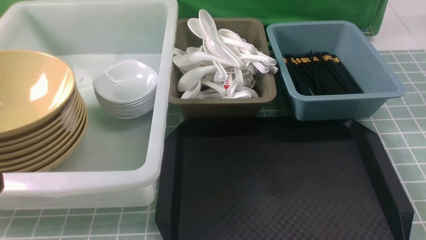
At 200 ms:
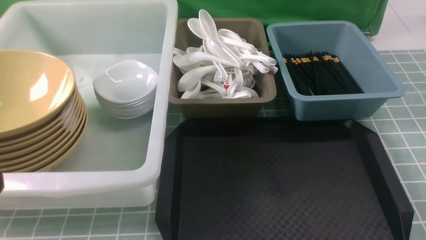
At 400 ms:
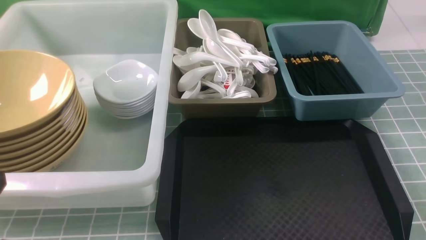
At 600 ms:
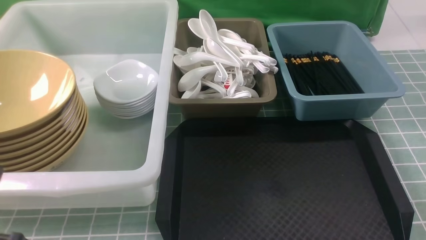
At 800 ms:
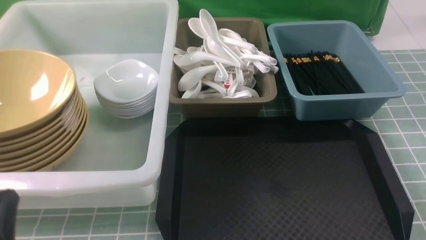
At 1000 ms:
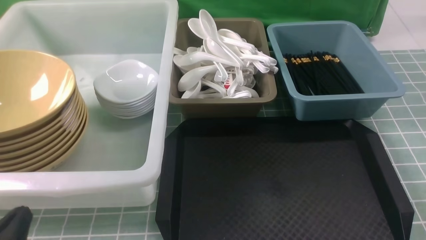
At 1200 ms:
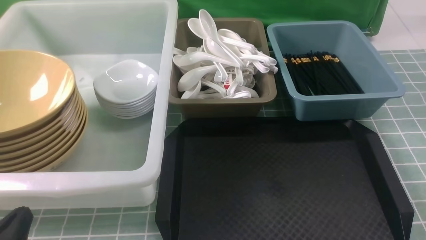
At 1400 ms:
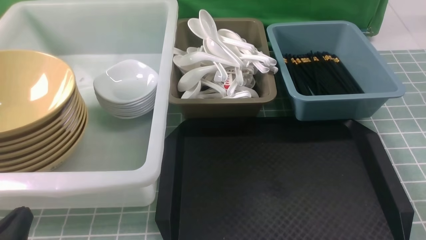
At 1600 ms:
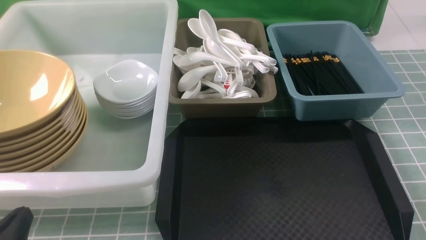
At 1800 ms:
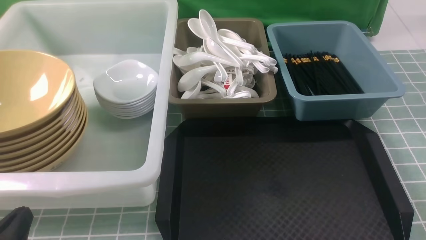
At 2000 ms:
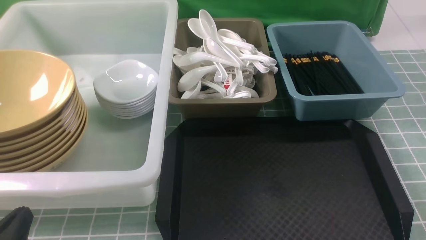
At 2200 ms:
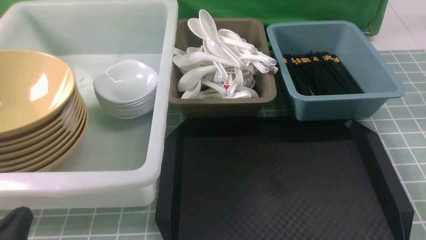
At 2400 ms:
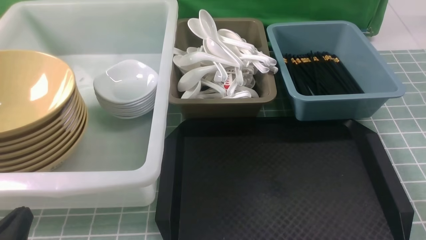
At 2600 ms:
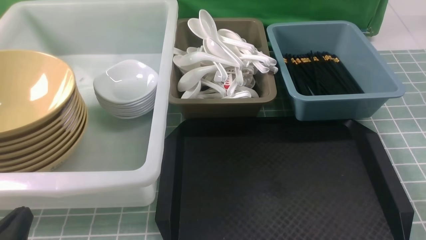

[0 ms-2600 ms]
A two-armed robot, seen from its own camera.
Task of the whole recording: on blue table put chopsticks spoon bowls plates into blue grey white boxes.
0 ms to 1200 ms: The left gripper goes some 15 cm downward.
1200 ms to 2600 ms: The two grippers keep their place.

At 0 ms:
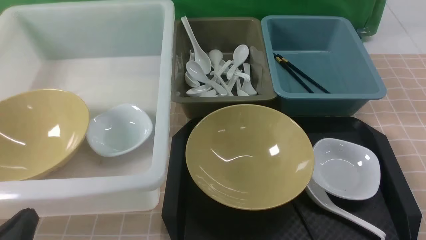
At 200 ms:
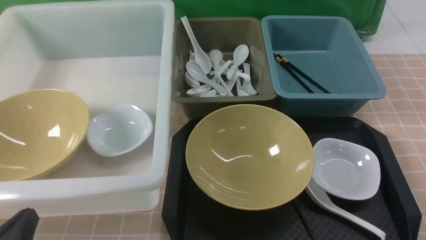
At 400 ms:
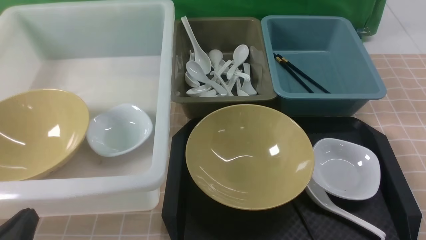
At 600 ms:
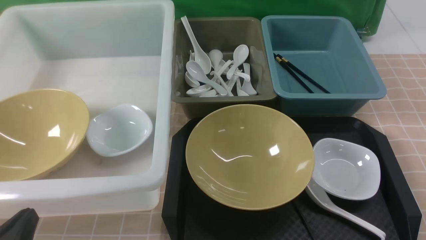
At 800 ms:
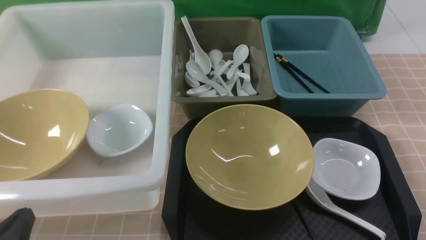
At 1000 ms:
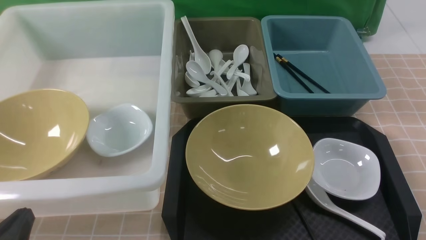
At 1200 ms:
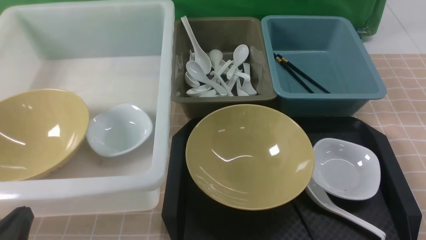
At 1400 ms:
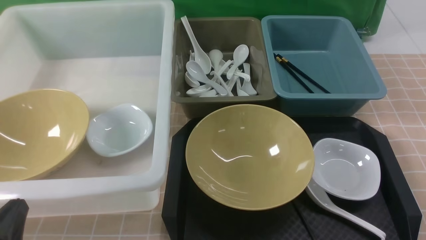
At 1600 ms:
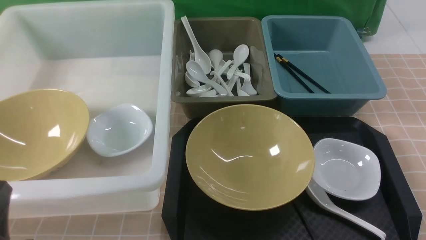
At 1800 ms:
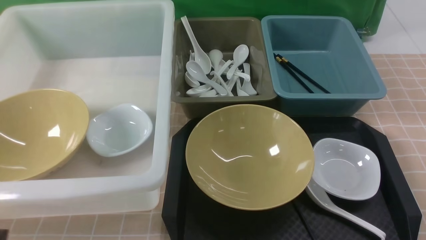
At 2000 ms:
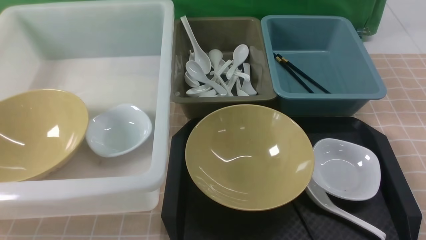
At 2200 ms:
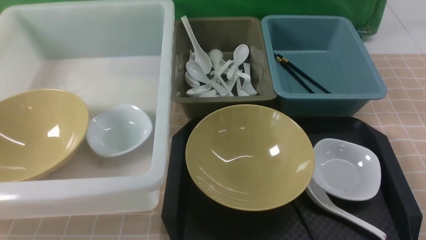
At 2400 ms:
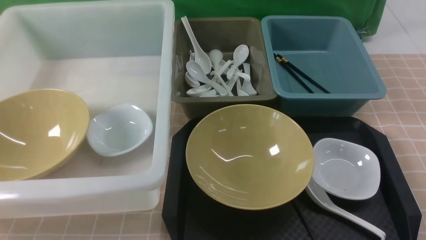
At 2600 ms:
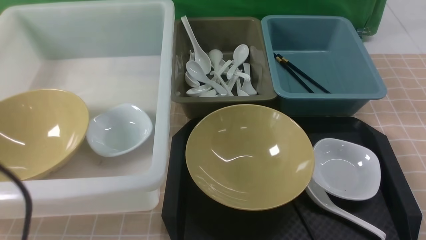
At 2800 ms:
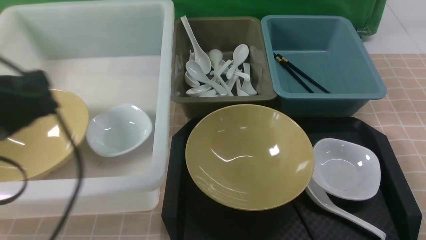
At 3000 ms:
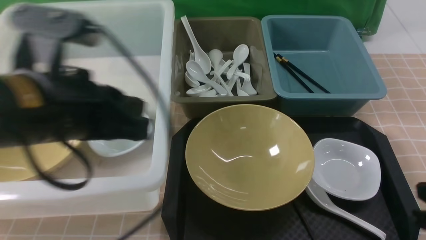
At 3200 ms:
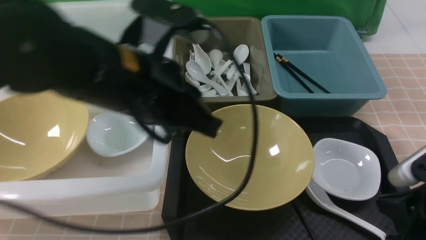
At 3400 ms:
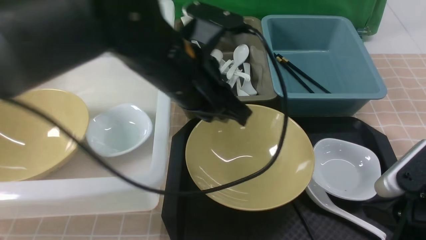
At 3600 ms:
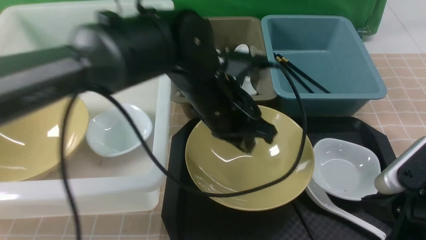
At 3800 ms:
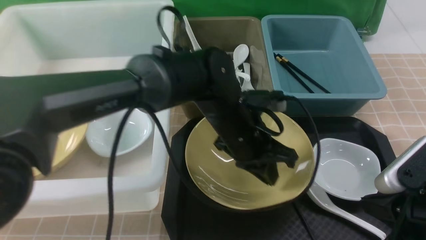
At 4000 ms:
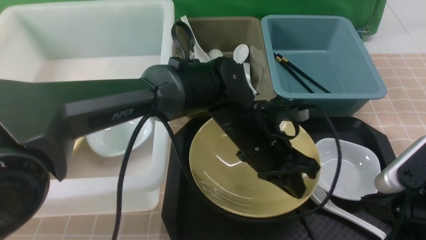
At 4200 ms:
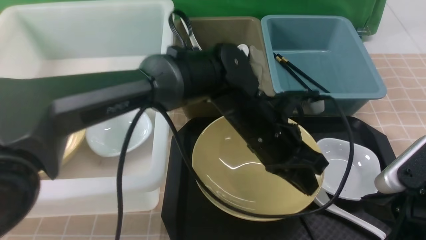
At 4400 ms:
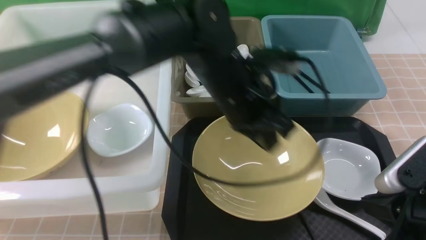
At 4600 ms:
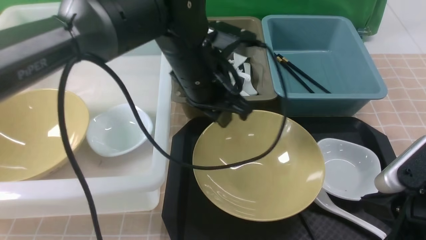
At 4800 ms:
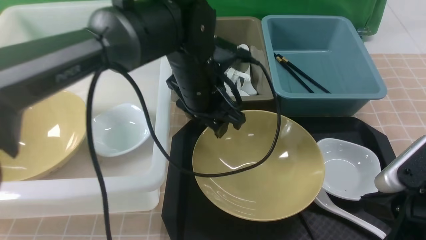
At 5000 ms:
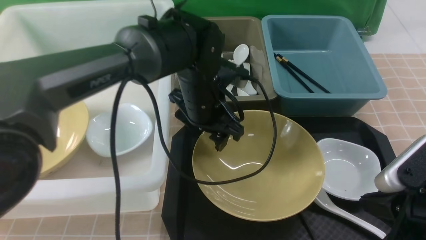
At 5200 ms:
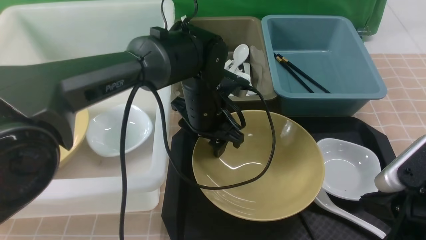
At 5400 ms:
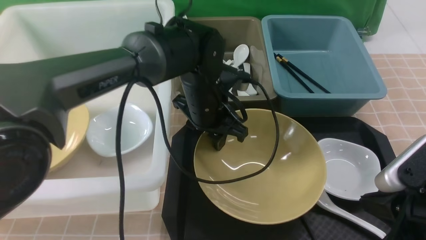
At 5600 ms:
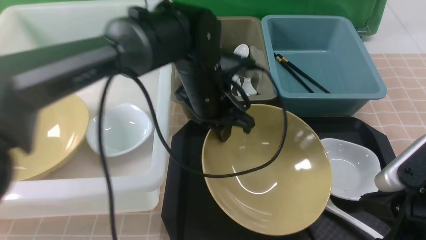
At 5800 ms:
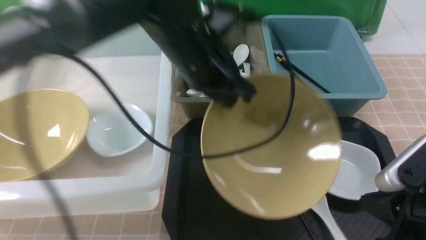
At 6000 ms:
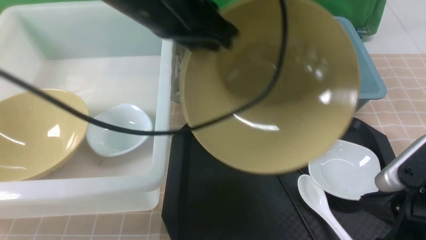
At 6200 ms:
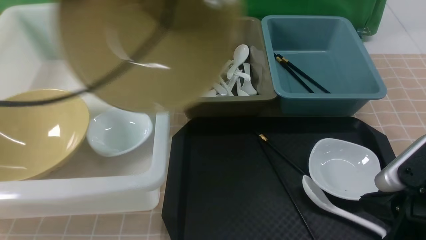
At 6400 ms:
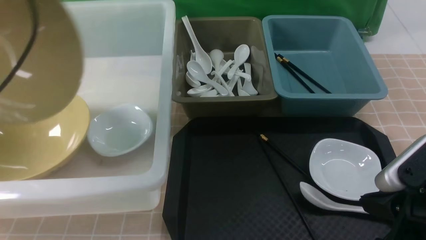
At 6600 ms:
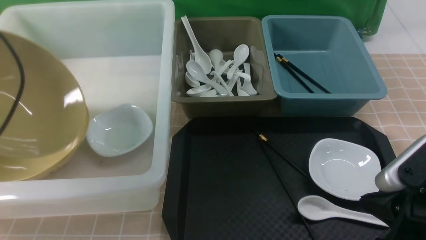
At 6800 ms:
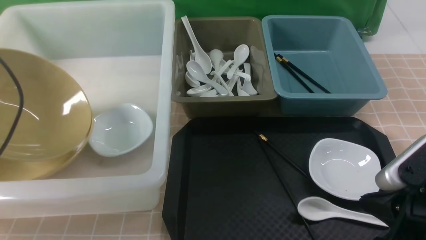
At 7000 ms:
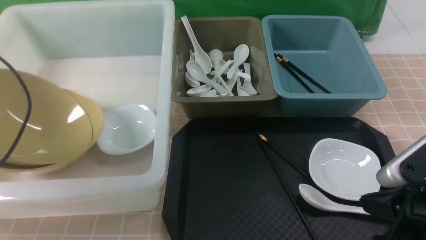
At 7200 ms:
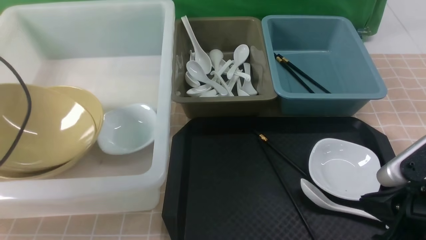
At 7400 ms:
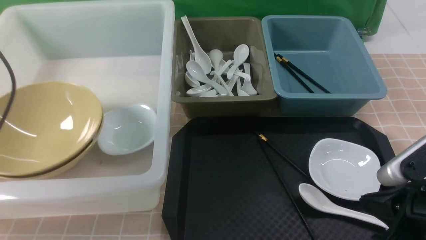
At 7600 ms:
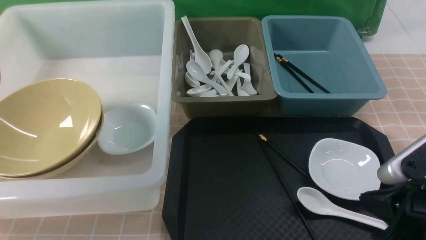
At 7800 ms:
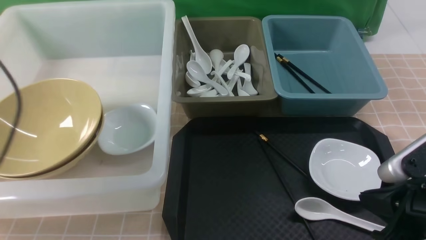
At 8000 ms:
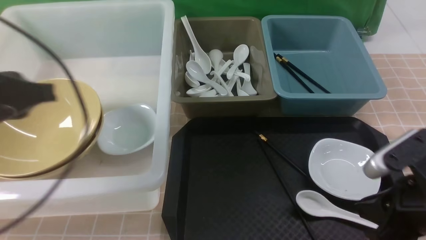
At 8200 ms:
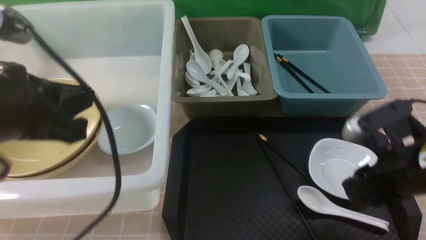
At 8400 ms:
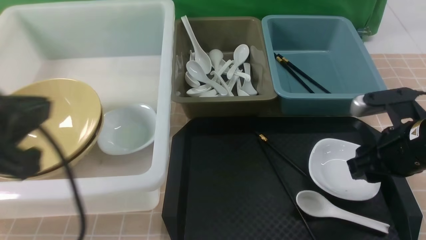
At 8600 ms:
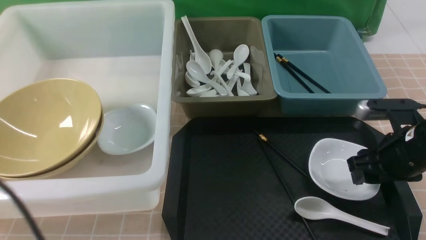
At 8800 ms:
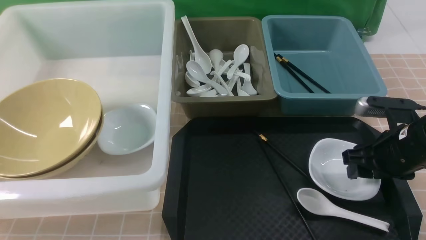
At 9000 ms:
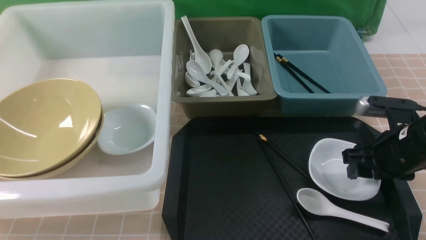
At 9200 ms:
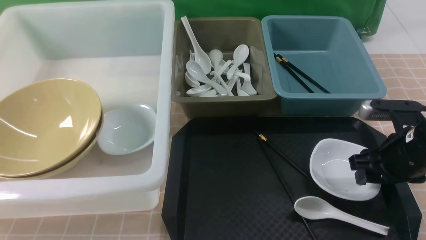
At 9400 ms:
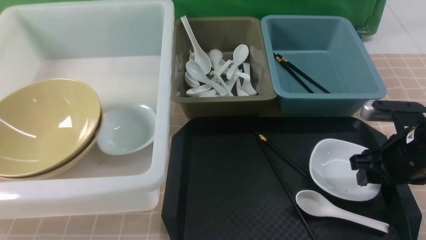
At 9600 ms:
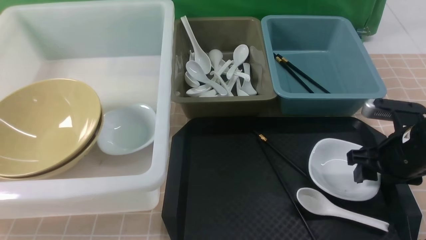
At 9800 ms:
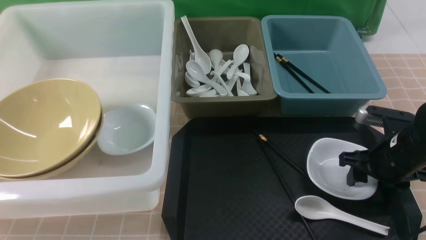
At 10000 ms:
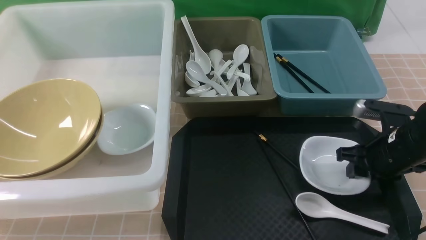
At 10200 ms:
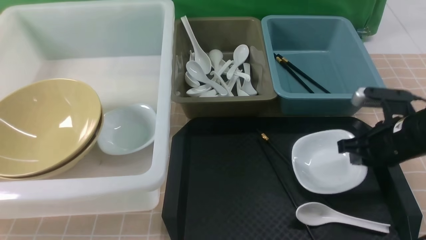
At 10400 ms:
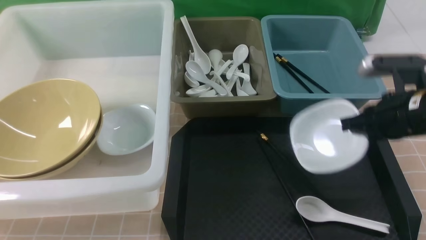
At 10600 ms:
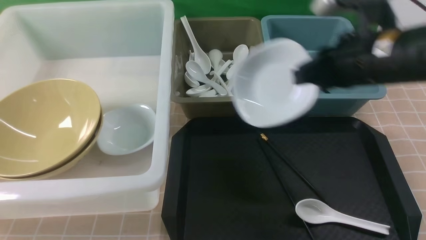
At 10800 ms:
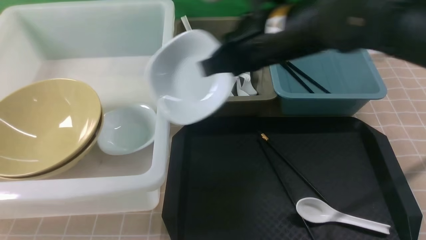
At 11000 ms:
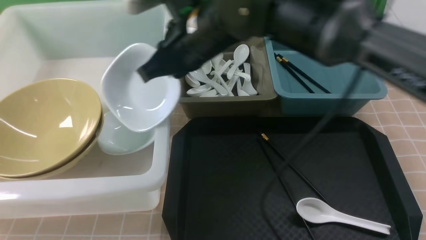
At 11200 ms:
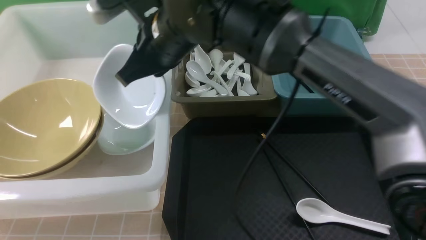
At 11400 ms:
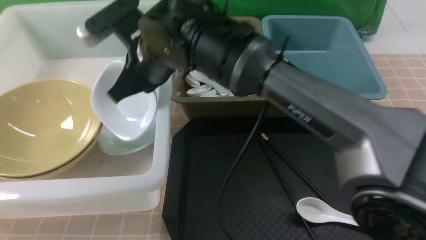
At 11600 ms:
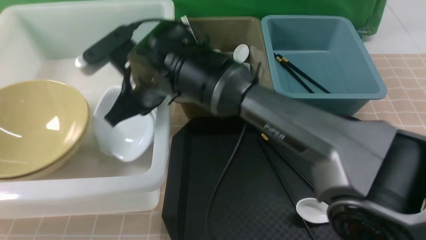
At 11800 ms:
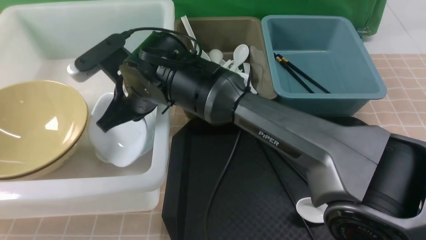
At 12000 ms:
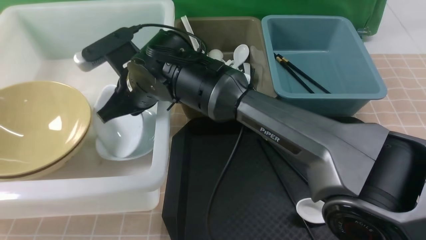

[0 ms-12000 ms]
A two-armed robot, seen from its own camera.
Task of the whole recording: on brown table put chopsticks spoon bowls plates into blue grey white boxes.
Step, 0 ms to 5600 ms: use the left arm to grab the yellow noodle bowl on the left.
Step, 5800 ms to 7600 ms: use the left arm to put the noodle bowl into the large storage box on the left.
Step, 7800 ms to 10200 ms: use the right arm to grab the plate.
1600 ms to 3000 ms: The right gripper heads forward, covering about 10 cm, and closes up. The left gripper travels upward, forward and to the right by about 25 cm.
3000 ms to 4400 ms: The left gripper travels to the right, forward and downward by roughly 20 cm.
4400 ms to 6000 ms: The left gripper heads upward and to the left, covering some 20 cm, and opens, then closes once more.
6000 ms to 7600 ms: The left gripper is displaced to the left by roughly 25 cm, and opens its fingers.
7600 ms to 9000 ms: The left gripper heads backward, covering about 20 cm, and closes. The right gripper moves forward, about 15 cm, and opens its fingers.
9000 ms to 10400 ms: The right gripper is displaced upward by approximately 10 cm, and closes.
10400 ms to 12000 ms: The right gripper goes roughly 30 cm to the left.

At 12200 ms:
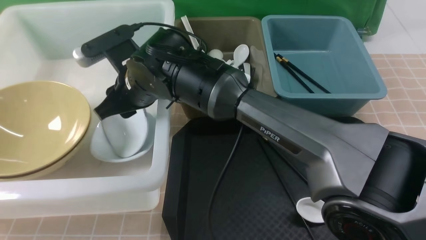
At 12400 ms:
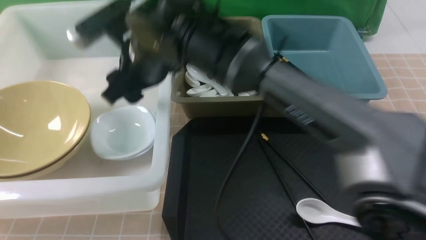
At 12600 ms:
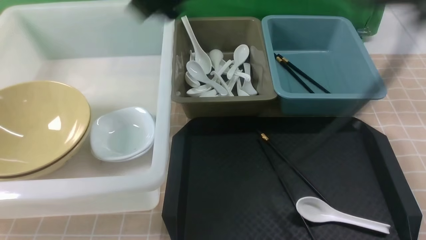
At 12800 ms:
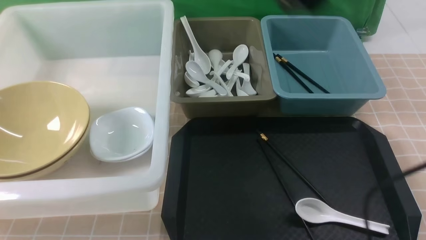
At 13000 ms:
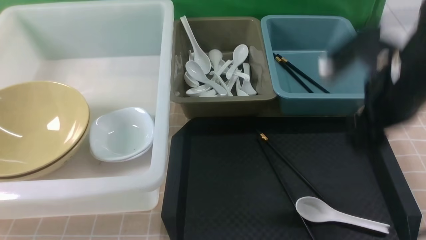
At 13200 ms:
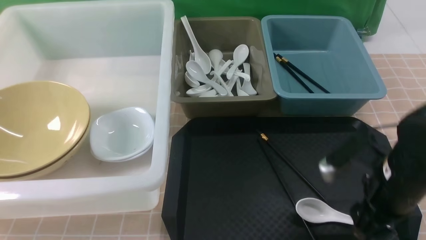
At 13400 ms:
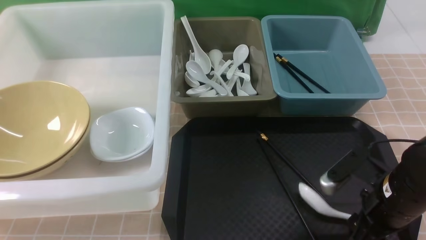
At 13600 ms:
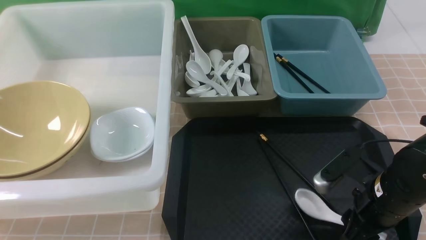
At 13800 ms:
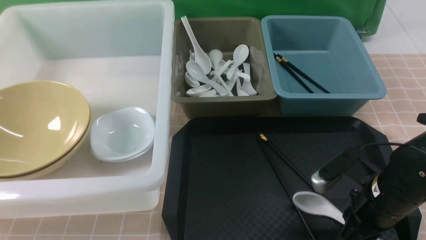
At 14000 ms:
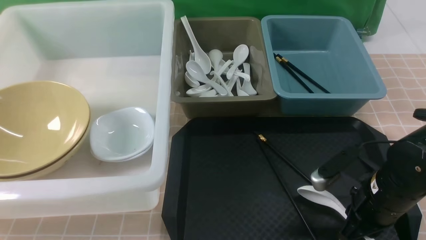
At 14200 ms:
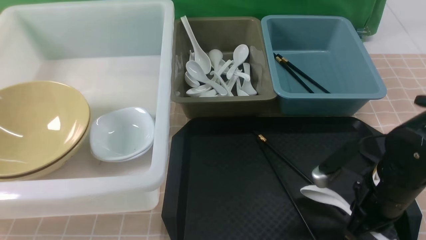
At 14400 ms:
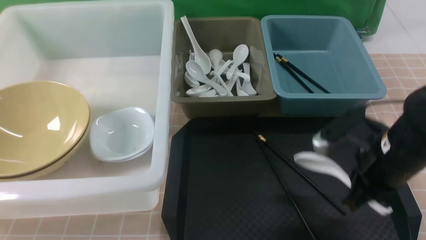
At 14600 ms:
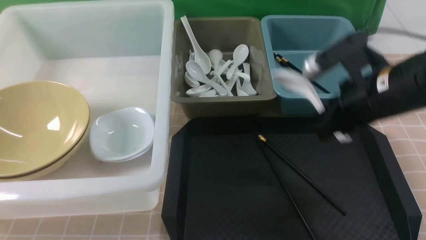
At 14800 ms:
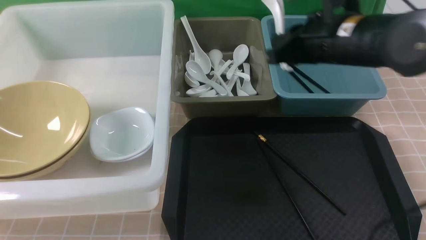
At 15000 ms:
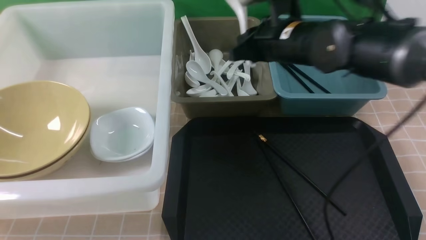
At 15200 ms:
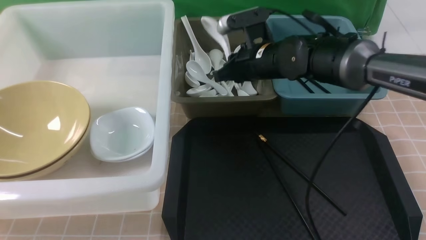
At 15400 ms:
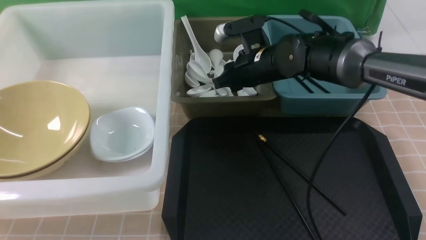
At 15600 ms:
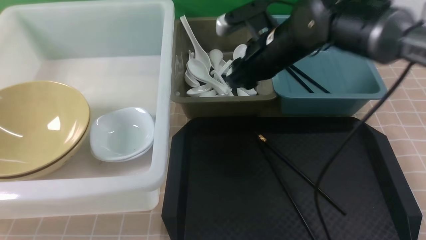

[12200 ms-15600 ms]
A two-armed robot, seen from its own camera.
Task of the whole recording: on brown table put chopsticks spoon bowls plates into blue grey white boxes.
Step, 12800 ms to 14200 ms: use the right arm to grab the soup spoon in the middle.
Step, 14400 ms to 15600 ms: use the right arm to put the soup spoon into the small storage box in the middle.
12200 ms to 13800 ms: The right gripper goes approximately 35 cm to the right, backward and downward.
13800 ms to 15600 ms: The right gripper travels forward, upward and to the left by roughly 25 cm.
